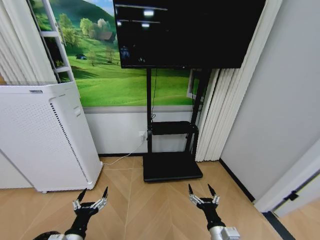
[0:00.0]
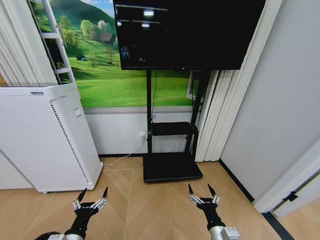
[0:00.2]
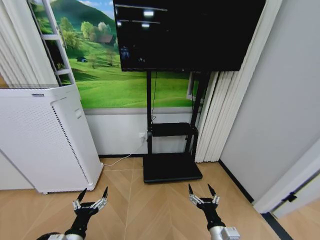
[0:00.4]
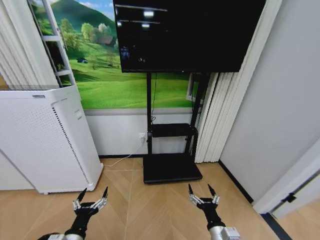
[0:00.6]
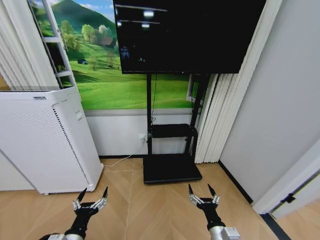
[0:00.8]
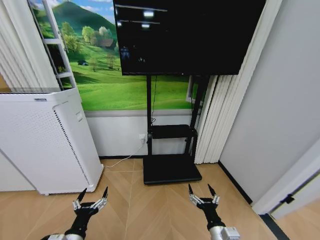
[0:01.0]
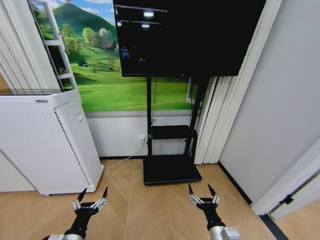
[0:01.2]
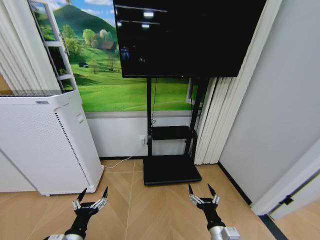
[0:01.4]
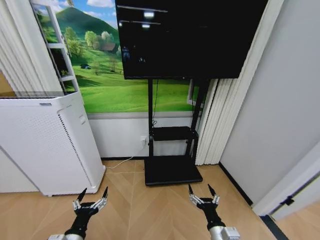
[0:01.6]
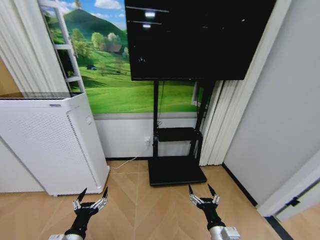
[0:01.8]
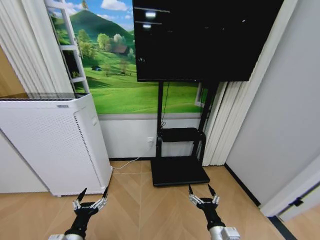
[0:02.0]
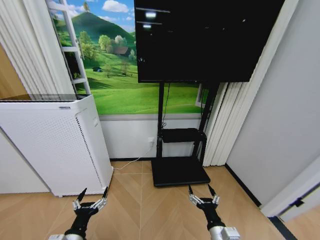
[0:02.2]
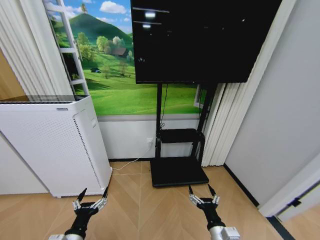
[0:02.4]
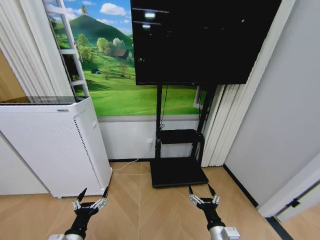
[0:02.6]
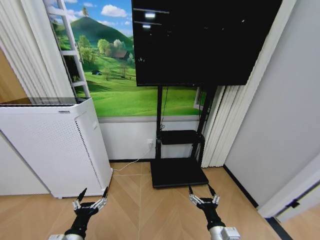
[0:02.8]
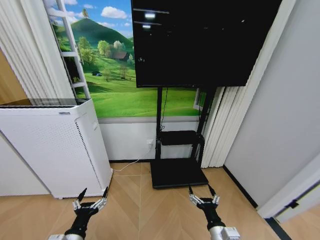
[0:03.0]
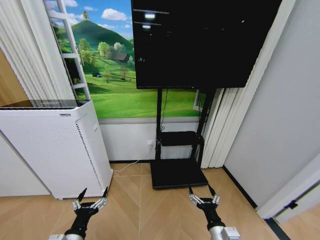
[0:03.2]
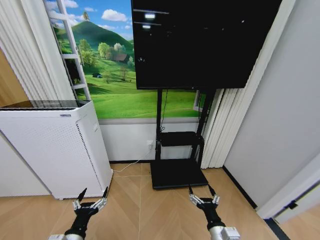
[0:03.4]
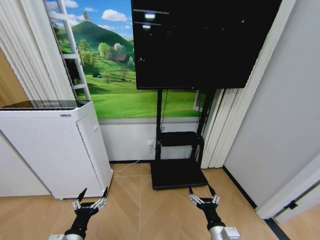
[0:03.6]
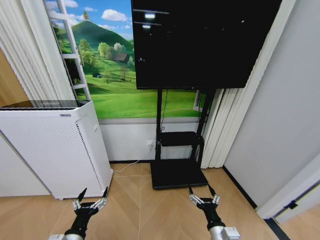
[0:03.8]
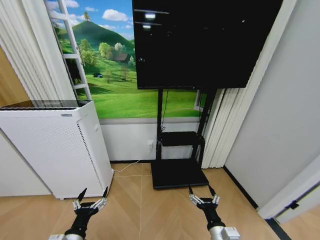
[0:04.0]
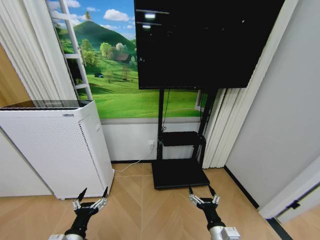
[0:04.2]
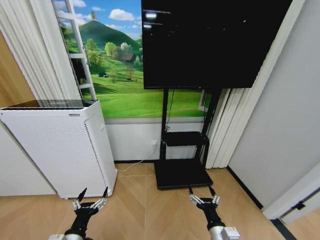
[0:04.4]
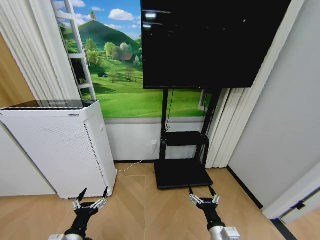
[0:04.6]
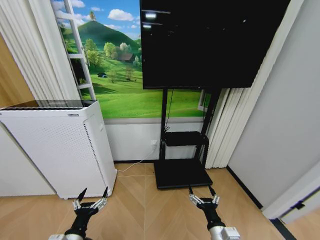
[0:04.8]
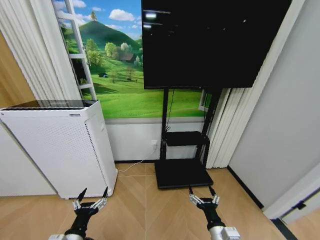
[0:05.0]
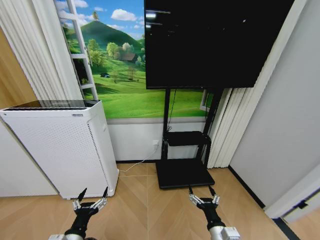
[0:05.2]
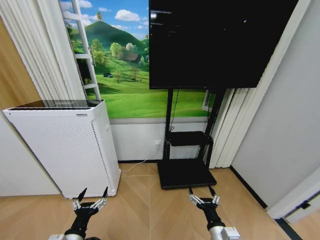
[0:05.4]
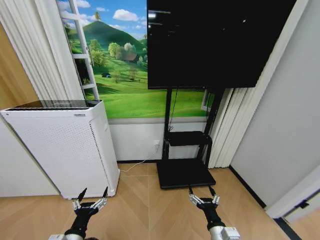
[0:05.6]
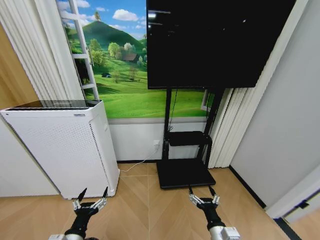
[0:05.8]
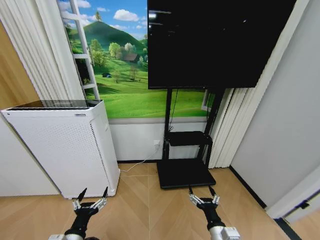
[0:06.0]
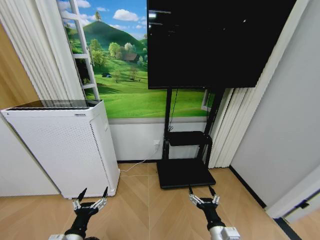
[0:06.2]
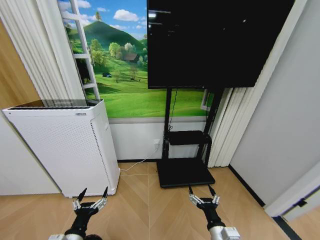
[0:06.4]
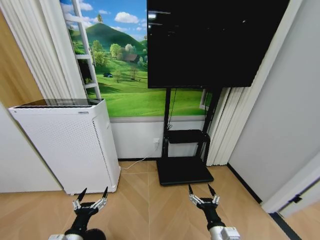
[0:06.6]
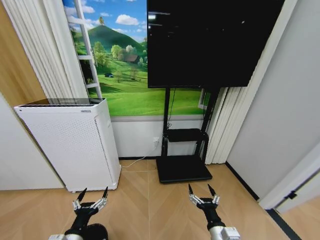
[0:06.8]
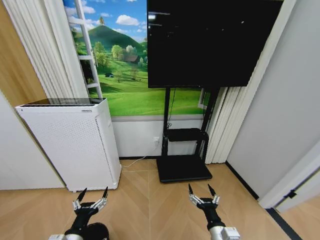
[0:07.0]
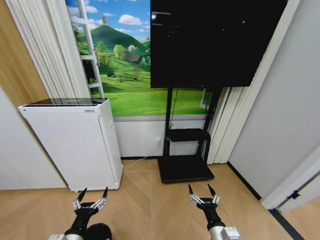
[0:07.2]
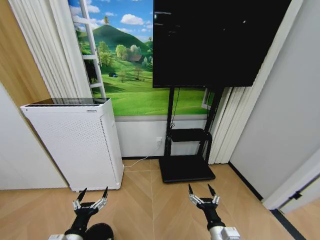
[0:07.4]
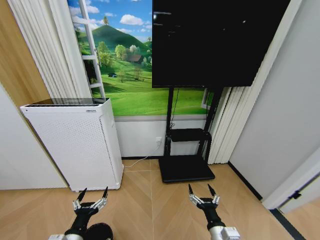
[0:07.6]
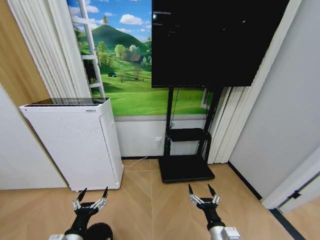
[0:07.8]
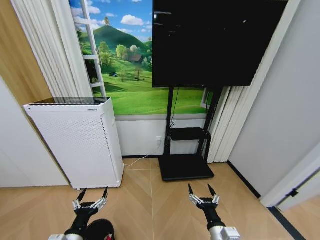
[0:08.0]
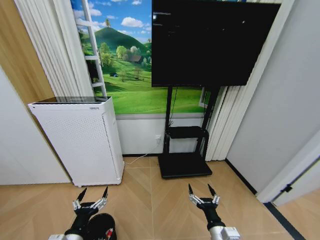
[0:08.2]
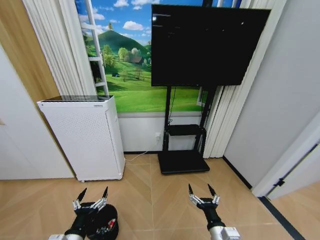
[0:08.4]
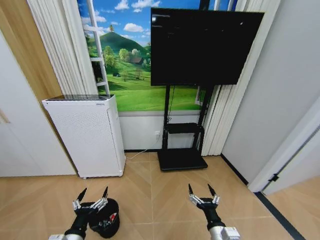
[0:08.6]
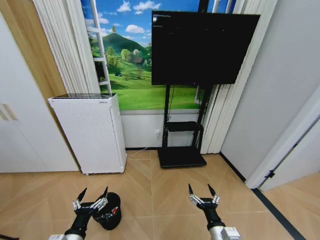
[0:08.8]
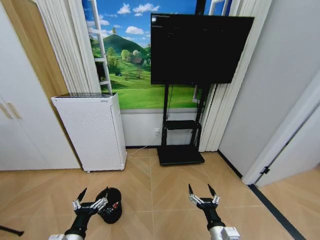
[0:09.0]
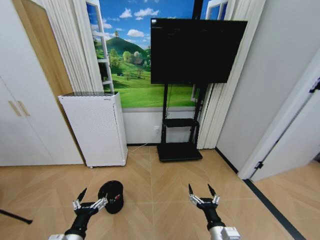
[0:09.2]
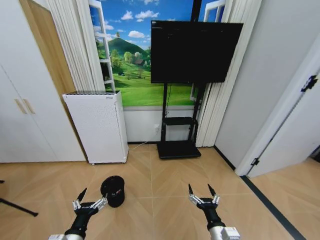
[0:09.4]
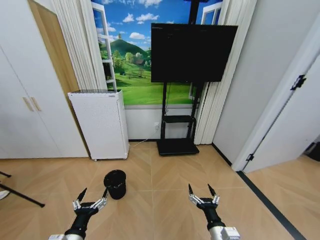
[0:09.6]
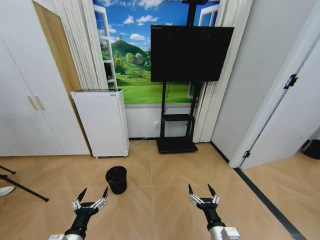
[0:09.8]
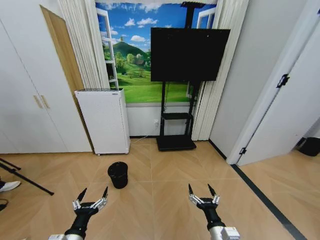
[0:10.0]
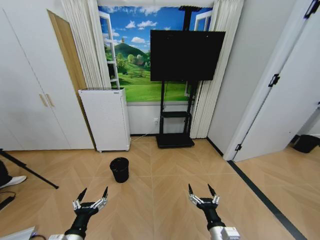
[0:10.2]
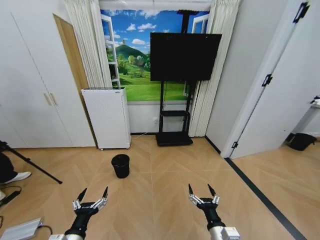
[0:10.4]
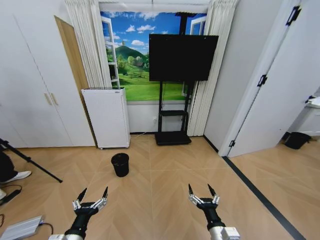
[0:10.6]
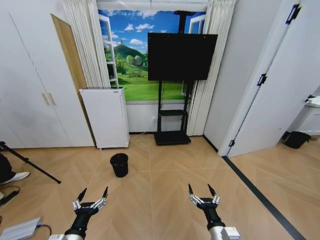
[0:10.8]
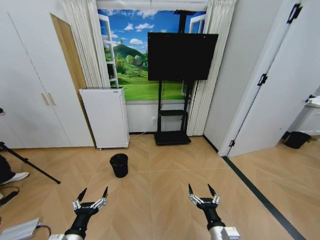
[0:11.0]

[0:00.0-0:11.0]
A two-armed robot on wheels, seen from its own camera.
Task of the whole recording: Pick up the trash bin and place the garbage on the floor into it.
0:03.2 to 0:06.2: Both grippers stay put.

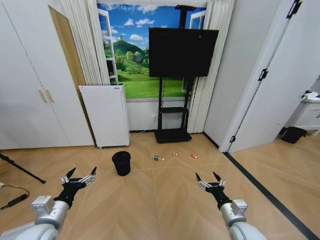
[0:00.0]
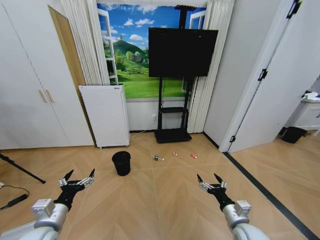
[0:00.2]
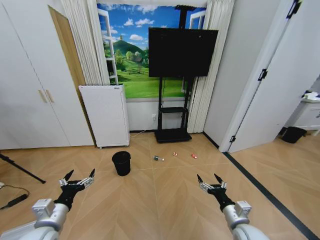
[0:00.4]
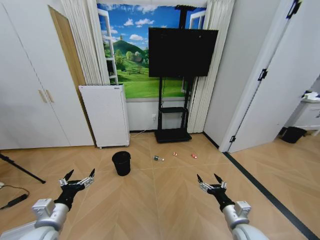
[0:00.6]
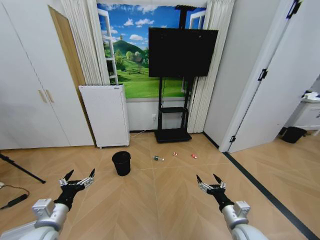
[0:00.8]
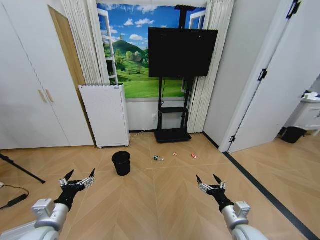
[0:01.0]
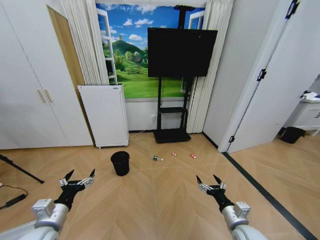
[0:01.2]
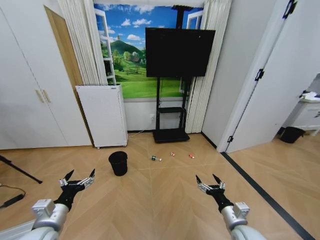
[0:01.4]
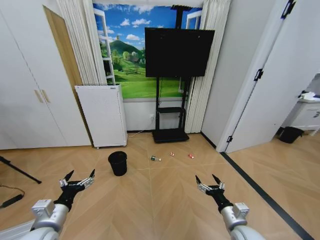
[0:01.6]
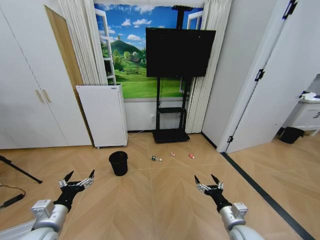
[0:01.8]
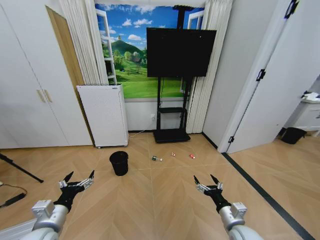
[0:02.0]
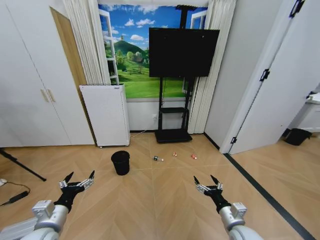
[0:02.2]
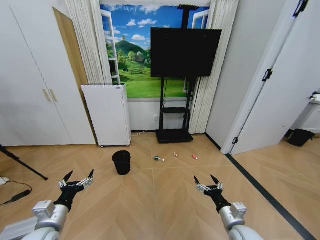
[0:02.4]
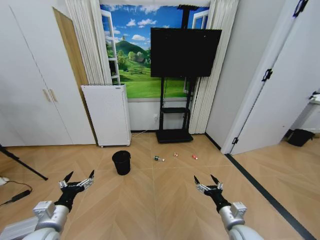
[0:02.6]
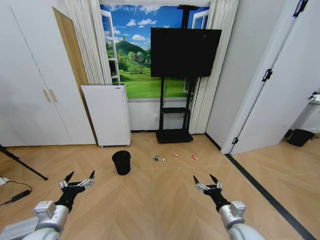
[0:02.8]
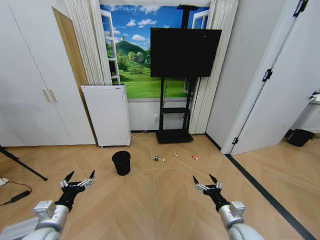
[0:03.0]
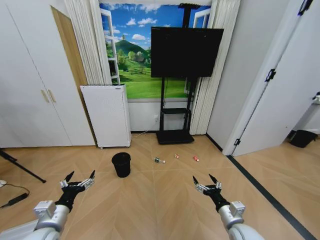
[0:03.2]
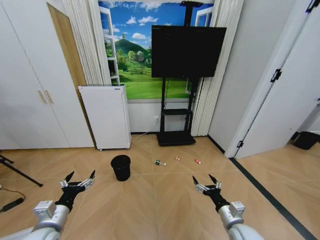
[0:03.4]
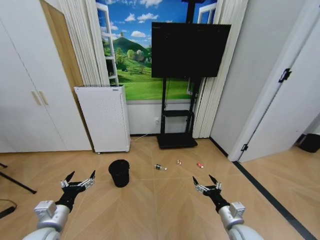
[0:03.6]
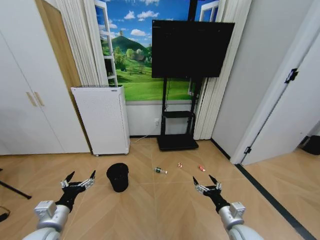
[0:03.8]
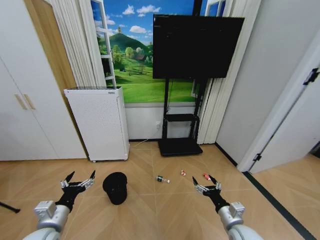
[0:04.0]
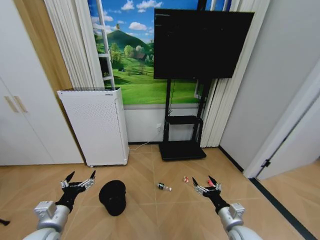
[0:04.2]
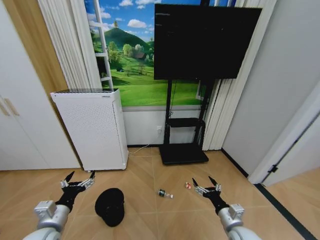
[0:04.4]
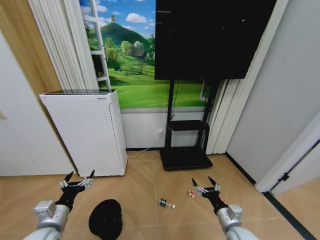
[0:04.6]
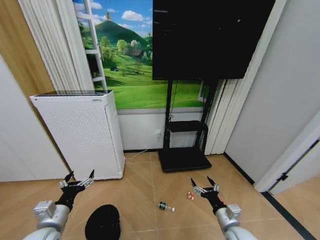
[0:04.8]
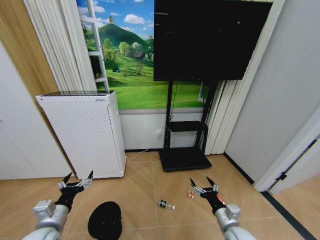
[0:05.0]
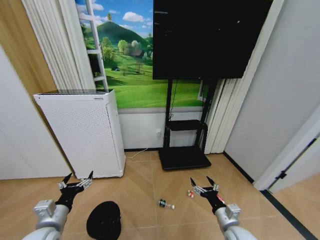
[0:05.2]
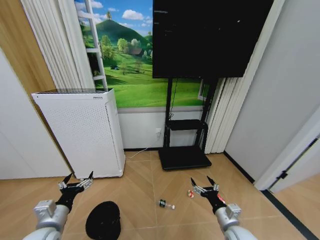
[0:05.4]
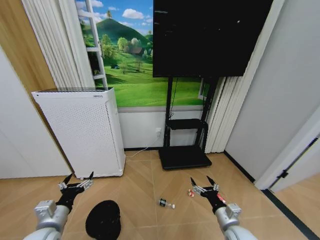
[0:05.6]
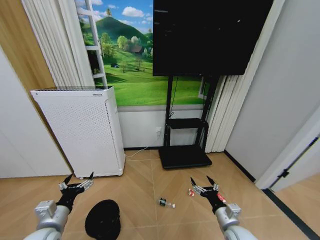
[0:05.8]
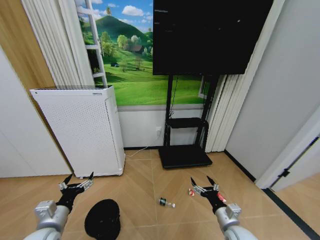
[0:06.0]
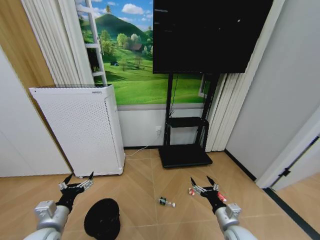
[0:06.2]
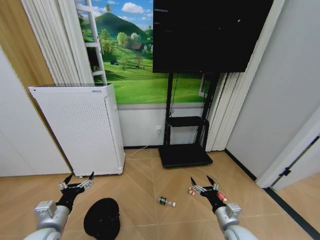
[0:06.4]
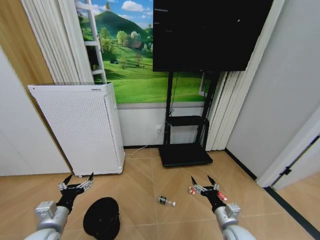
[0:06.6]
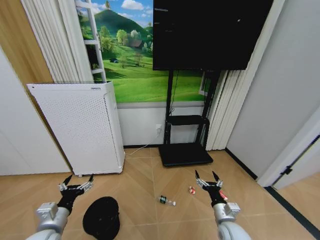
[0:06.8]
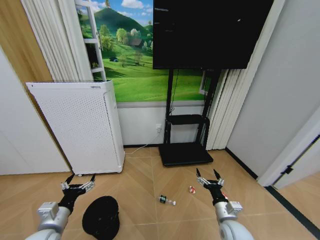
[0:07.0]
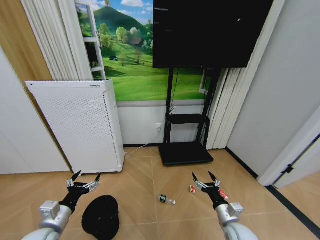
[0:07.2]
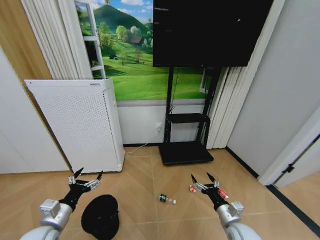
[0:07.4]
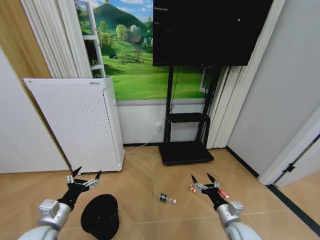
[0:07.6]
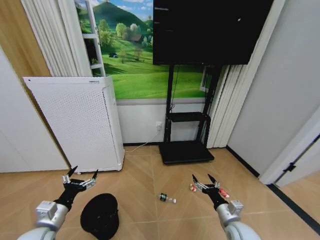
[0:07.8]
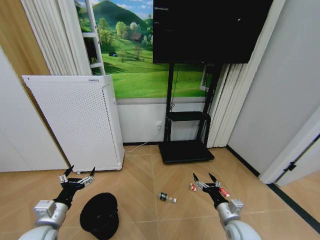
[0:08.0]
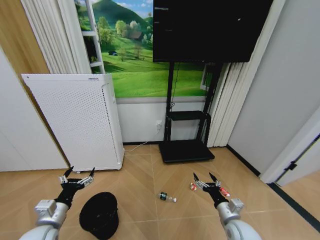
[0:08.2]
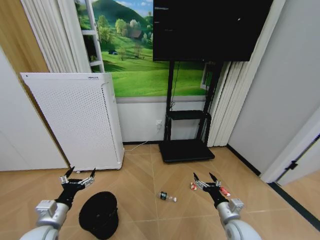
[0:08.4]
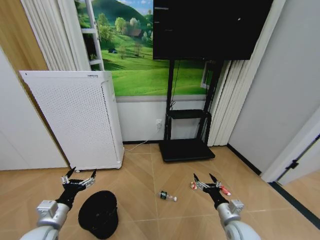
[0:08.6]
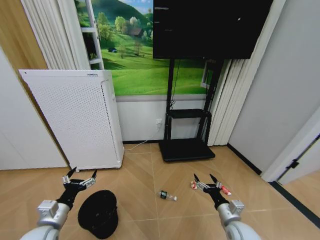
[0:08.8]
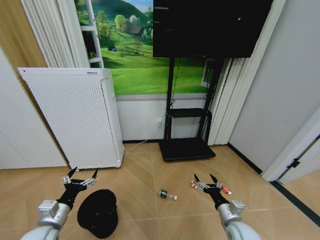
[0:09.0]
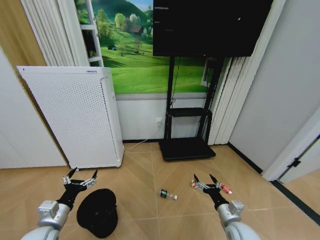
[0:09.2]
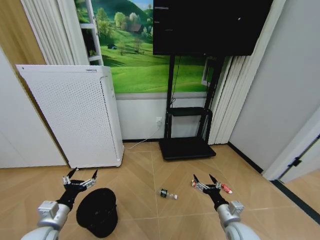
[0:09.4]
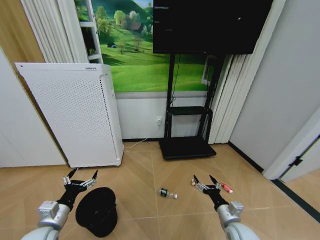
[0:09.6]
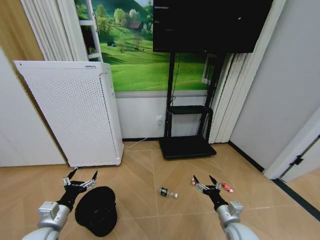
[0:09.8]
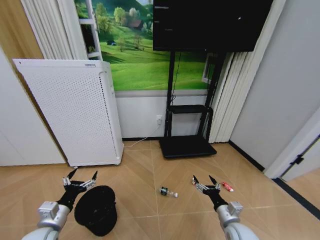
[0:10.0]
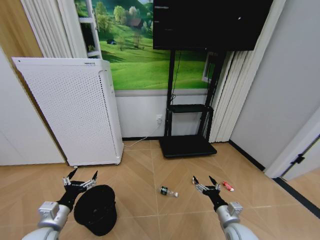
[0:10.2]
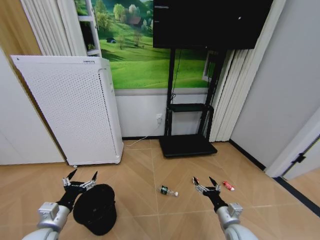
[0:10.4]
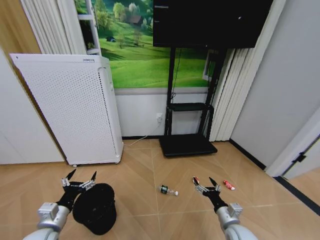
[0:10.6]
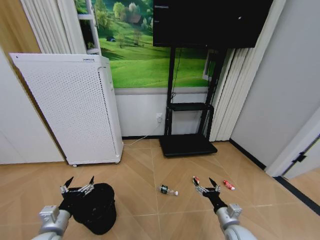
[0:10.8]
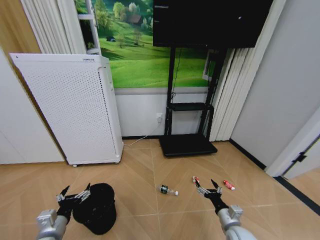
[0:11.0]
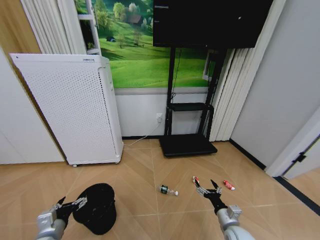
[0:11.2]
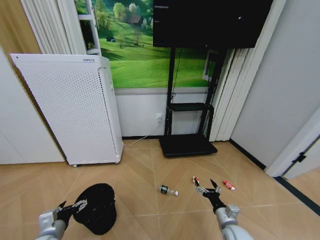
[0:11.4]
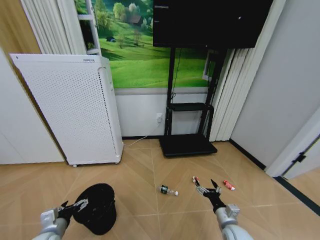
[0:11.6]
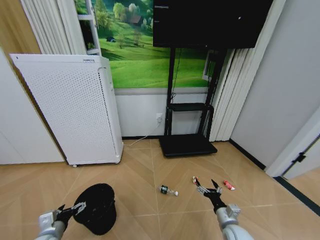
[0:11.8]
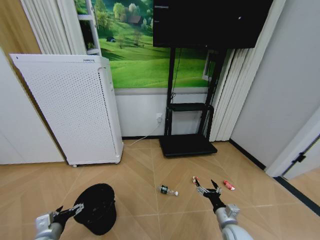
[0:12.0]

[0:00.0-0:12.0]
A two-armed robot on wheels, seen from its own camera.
Task of the whole recording: Pick up the trash bin and place the garbage on the floor into it.
0:06.0 to 0:10.4: The grippers move only a little.
0:10.4 to 0:12.0: The left gripper travels downward by some 5 cm.
